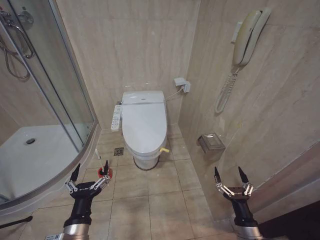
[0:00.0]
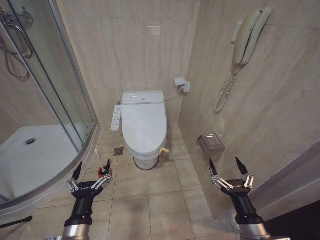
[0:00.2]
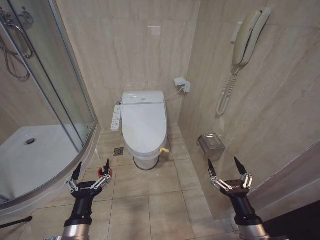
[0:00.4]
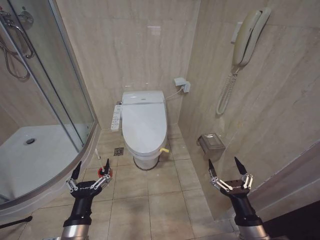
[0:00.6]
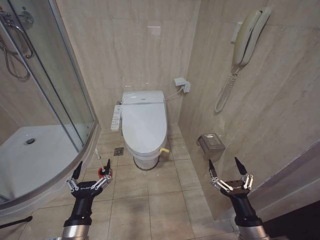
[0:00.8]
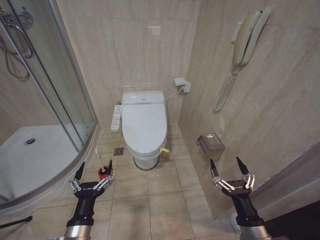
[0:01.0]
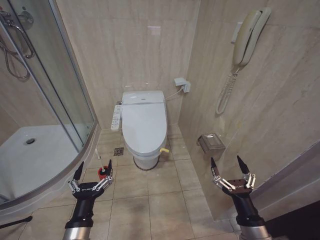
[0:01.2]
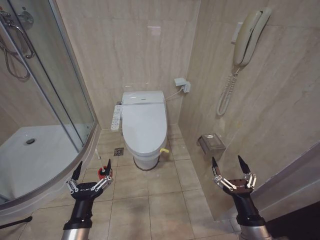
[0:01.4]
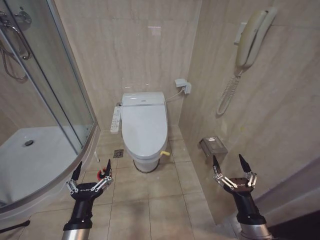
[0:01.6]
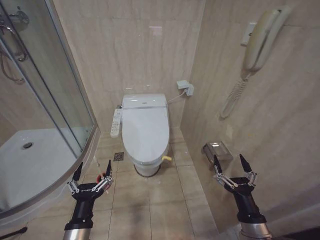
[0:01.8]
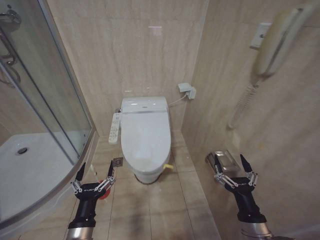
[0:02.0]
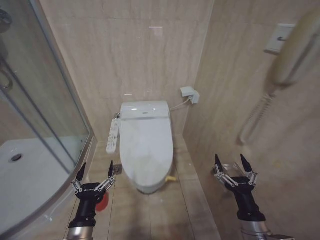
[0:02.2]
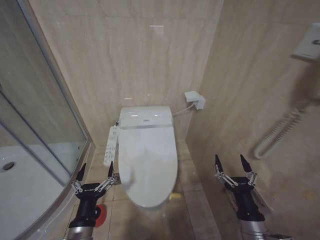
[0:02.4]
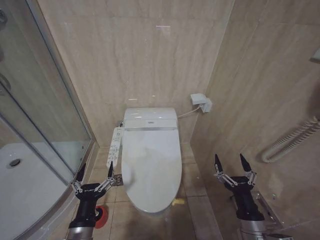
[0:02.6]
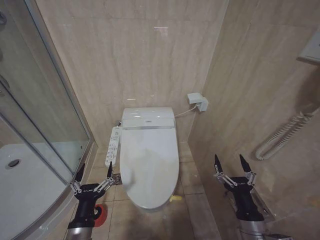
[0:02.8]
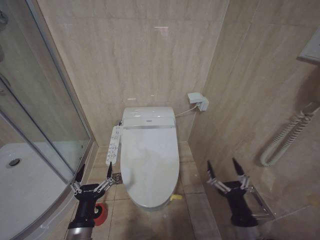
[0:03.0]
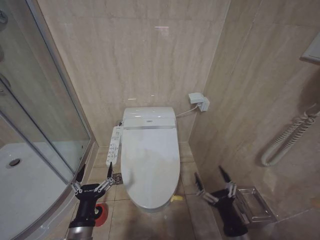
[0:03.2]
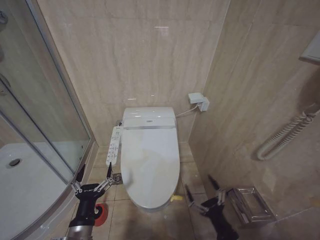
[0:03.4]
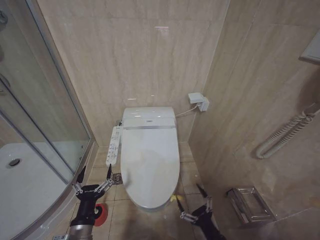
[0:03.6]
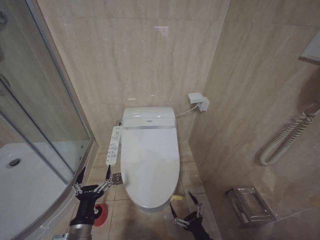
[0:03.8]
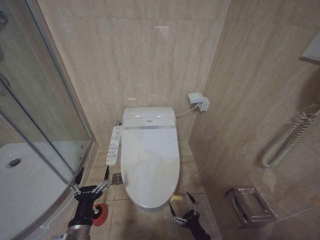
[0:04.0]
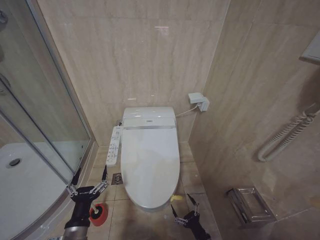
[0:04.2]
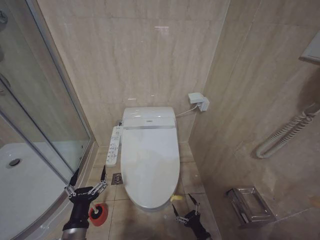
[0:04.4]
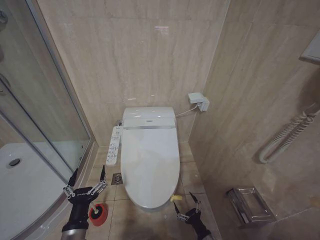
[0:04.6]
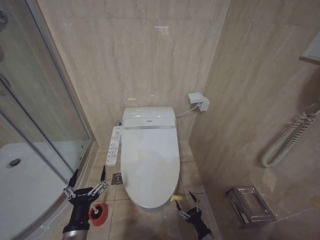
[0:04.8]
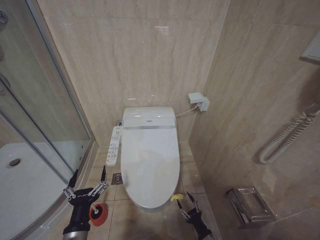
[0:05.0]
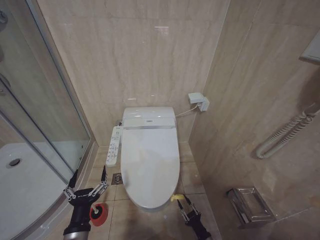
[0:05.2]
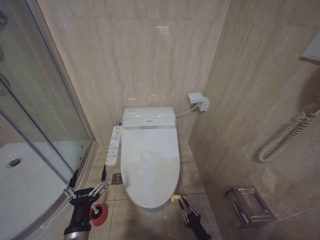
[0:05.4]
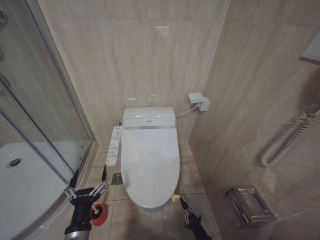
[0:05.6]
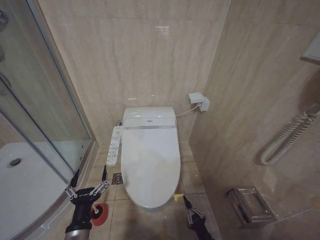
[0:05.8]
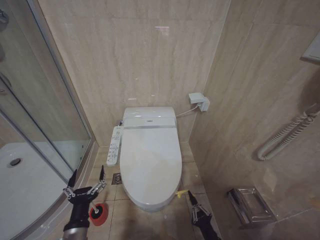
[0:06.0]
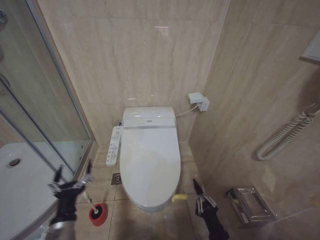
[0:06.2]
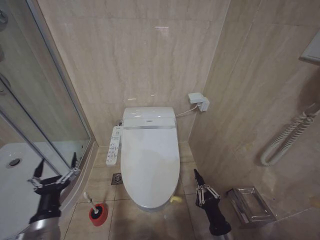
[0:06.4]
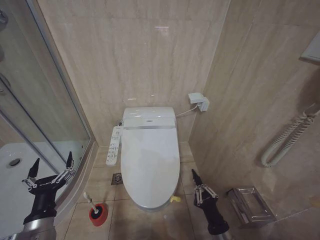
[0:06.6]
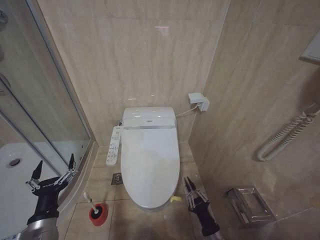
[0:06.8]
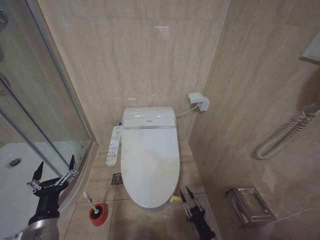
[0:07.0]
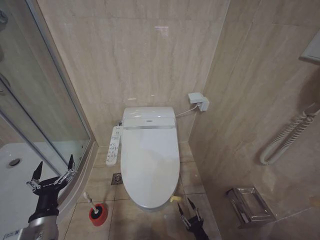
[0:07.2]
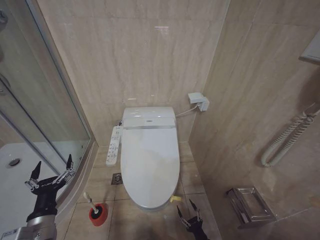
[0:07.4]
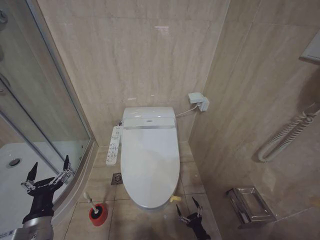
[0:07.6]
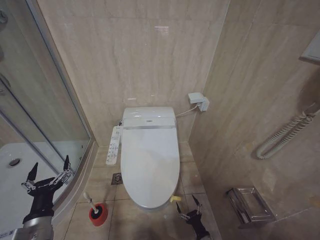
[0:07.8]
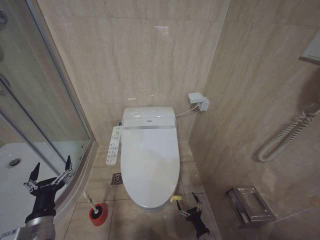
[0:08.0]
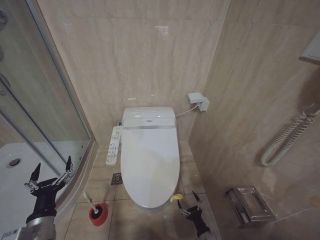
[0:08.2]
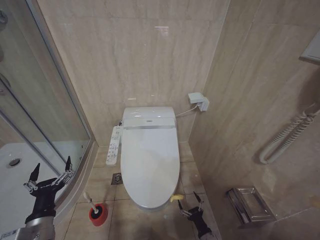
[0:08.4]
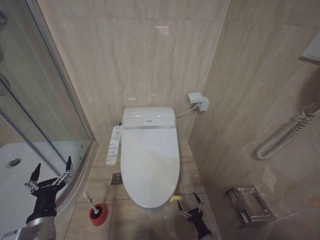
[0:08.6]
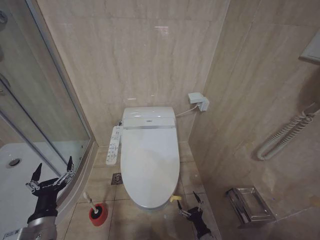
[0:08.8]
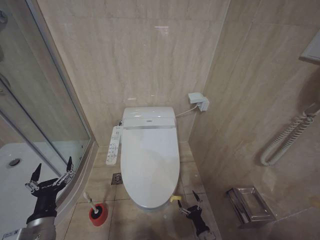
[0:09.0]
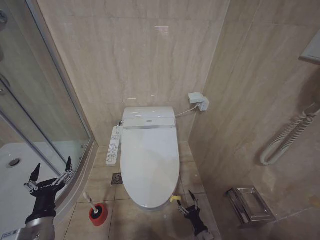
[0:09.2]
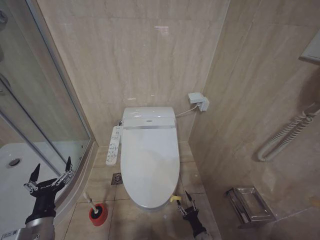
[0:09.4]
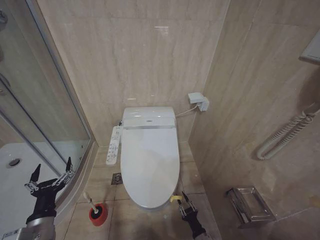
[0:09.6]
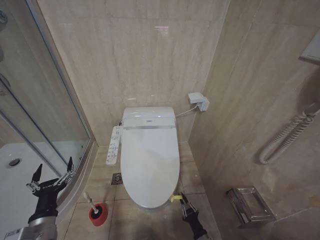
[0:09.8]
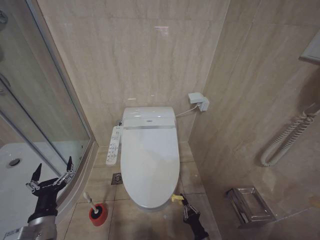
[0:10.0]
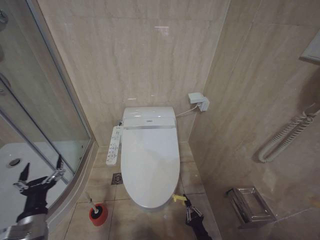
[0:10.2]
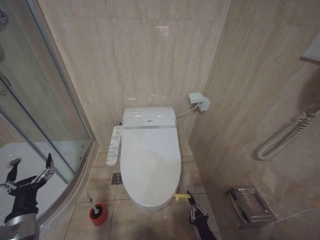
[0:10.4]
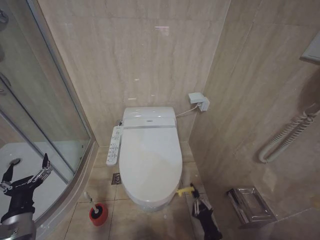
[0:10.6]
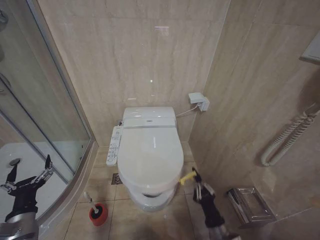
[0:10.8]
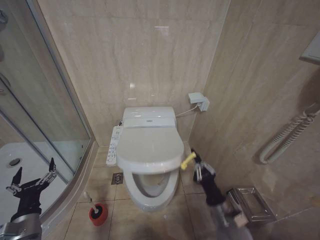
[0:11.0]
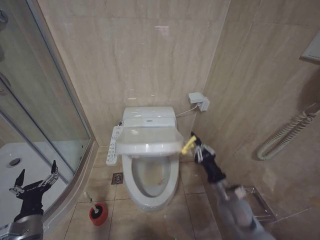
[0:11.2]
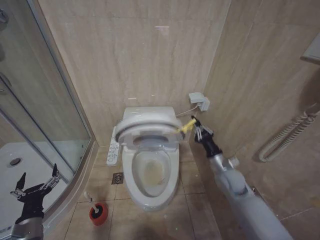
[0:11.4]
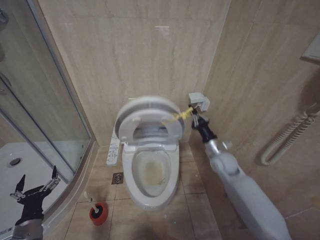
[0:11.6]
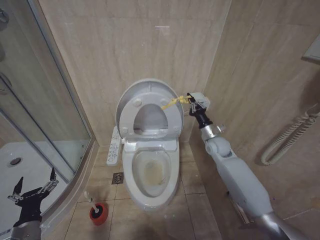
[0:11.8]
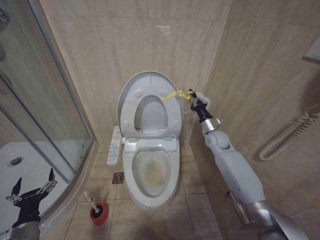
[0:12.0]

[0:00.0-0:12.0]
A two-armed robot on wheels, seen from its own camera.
Task of the whole recording: Open the toilet lid, clean the toilet bowl with a toilet brush, close the toilet lid, and flush.
0:03.0 to 0:04.4: The right gripper shifts some 25 cm downward.
0:04.4 to 0:06.0: The right gripper shifts by approximately 5 cm, and closes.
0:06.0 to 0:07.6: The left gripper is displaced to the left by about 10 cm. The right gripper shifts approximately 10 cm downward, and opens its fingers.
0:07.6 to 0:09.0: The grippers move only a little.
0:09.0 to 0:10.4: The right gripper shifts some 5 cm upward, and closes up.
0:10.4 to 0:12.0: The left gripper heads downward, covering about 5 cm; the right gripper is displaced forward and upward by some 50 cm.

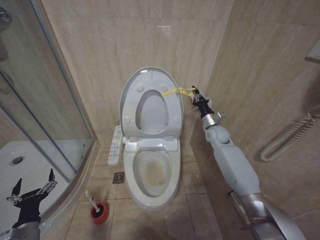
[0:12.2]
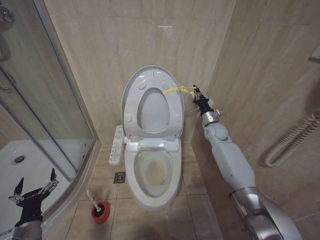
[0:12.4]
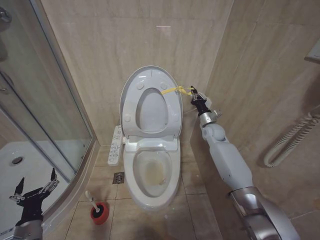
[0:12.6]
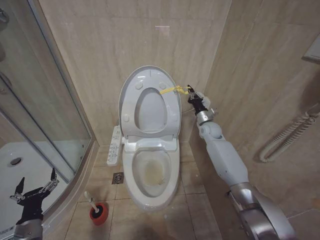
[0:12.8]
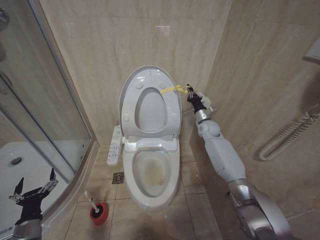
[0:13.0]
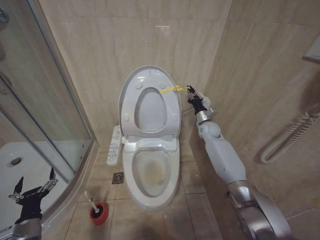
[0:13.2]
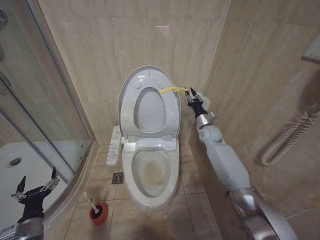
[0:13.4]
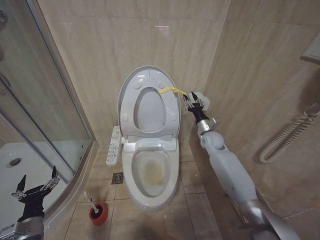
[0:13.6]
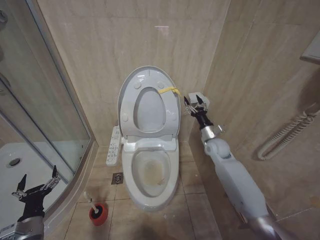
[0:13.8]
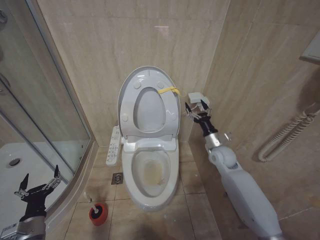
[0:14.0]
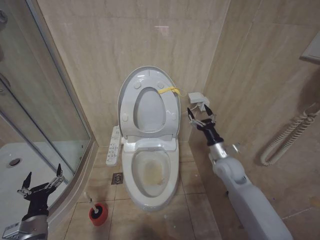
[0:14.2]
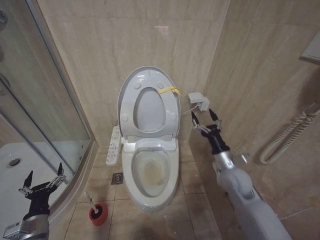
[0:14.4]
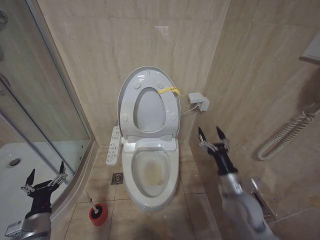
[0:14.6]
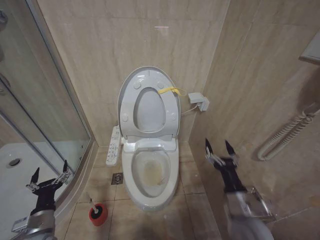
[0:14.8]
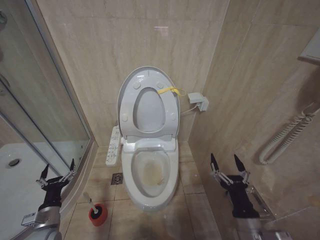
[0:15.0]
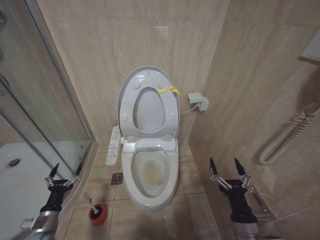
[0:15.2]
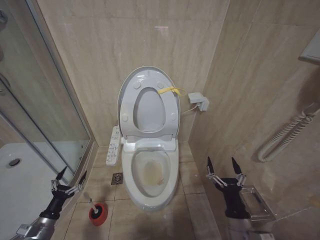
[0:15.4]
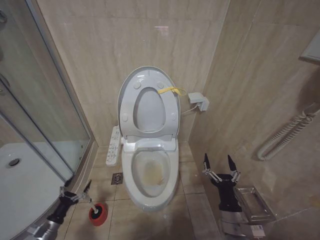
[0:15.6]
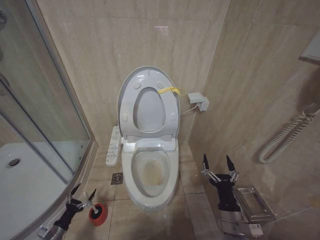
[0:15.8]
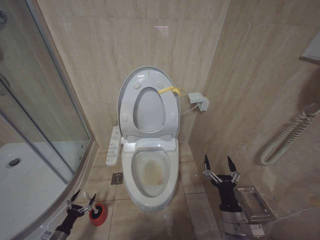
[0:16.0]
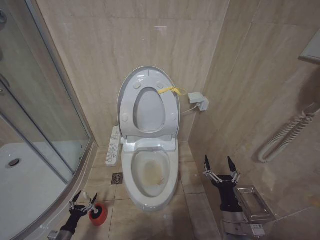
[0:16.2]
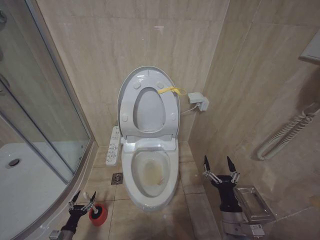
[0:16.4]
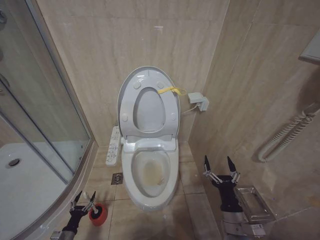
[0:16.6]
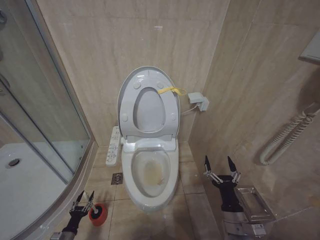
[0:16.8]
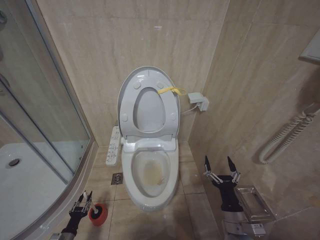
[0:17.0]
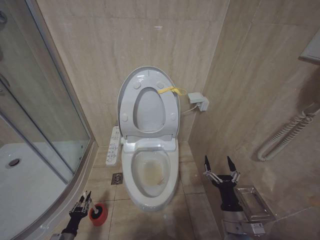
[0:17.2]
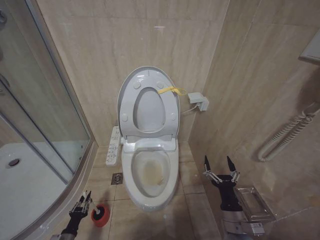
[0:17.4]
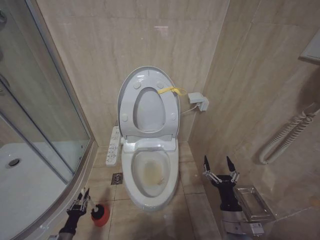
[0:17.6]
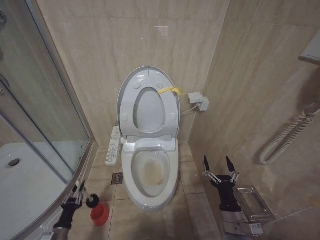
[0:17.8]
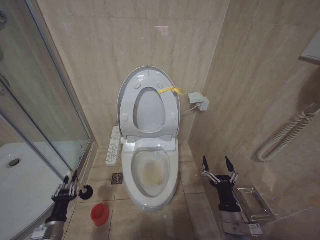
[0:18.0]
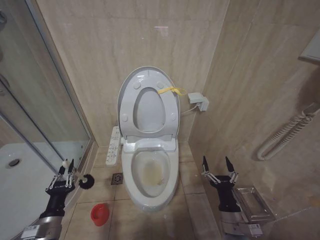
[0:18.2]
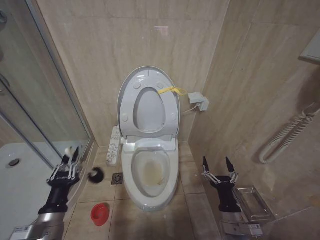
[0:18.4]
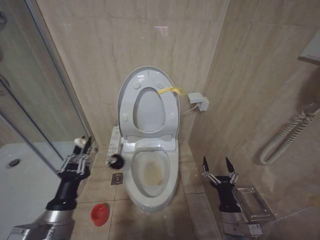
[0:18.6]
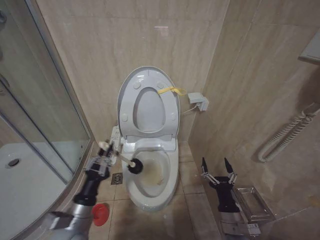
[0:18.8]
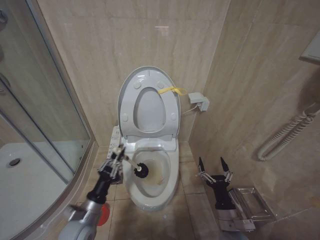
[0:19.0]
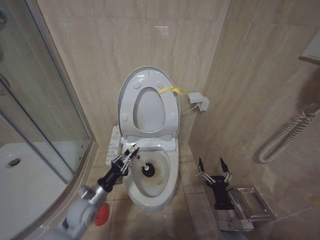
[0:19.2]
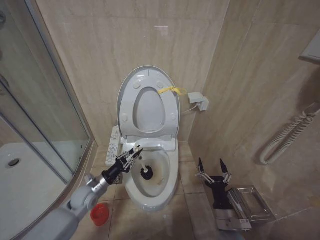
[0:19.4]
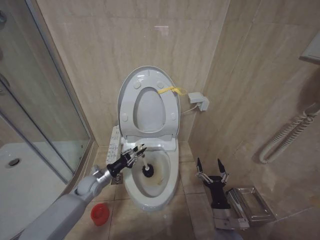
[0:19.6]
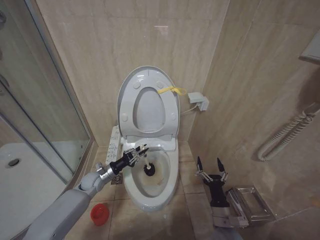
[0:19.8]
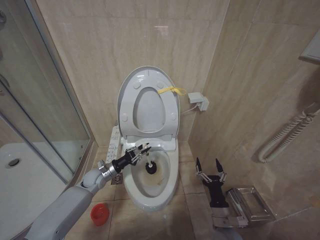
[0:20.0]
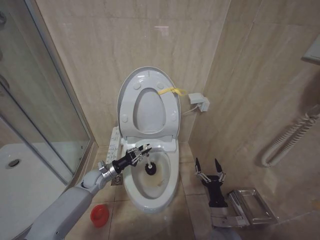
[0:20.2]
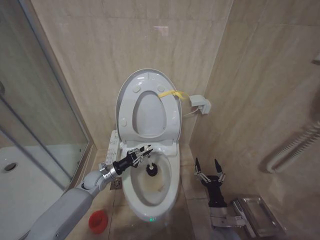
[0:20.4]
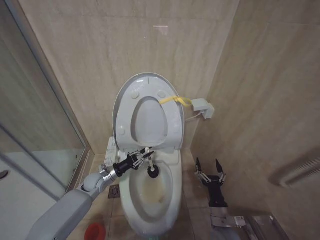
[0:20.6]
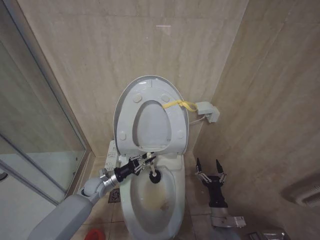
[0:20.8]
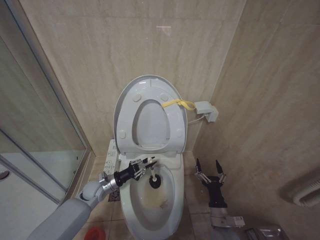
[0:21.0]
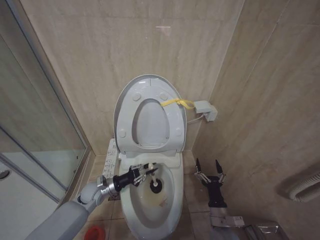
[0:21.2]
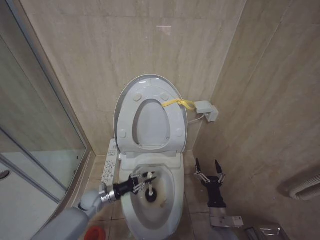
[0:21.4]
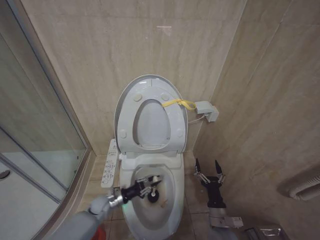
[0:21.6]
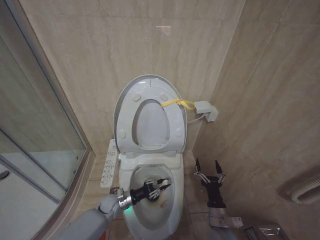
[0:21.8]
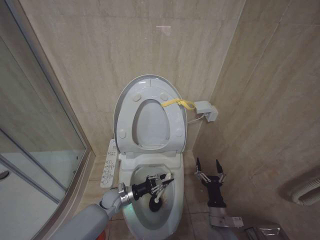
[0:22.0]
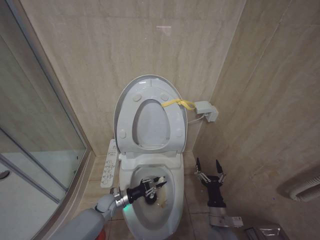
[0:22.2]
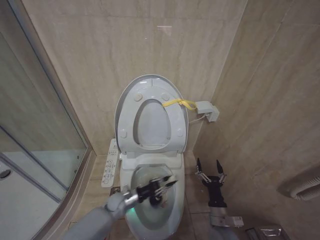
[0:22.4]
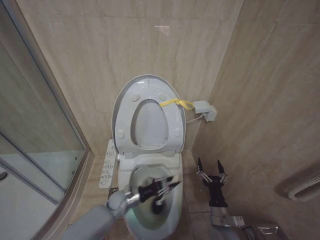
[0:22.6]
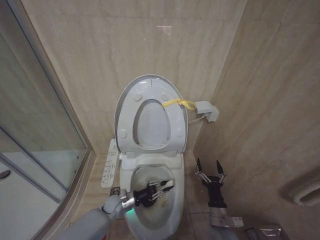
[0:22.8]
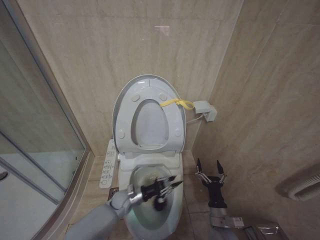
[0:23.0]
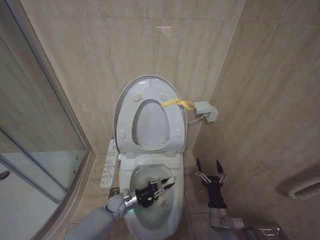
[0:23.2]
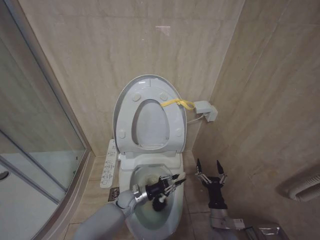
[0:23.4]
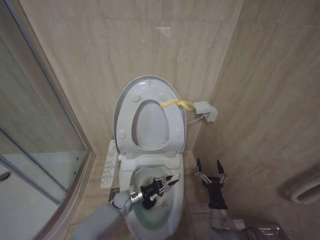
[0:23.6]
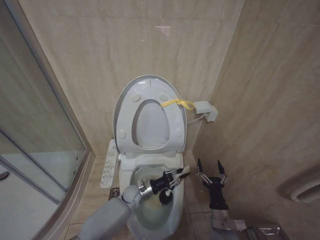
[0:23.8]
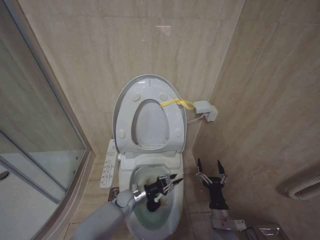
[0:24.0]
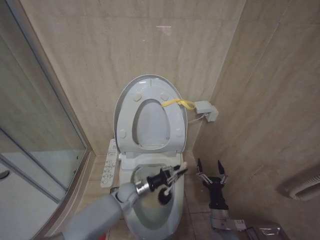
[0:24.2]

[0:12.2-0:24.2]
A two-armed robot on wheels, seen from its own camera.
Task of the whole recording: Open the toilet lid, clean the toilet bowl with a toilet brush, close the toilet lid, and flush.
0:12.2 to 0:13.8: The right gripper shifts by approximately 5 cm, and opens up.
0:13.8 to 0:15.2: The right gripper heads backward, covering about 35 cm, and opens up. Meanwhile the left gripper changes place by approximately 5 cm.
0:15.2 to 0:16.6: The right gripper shifts roughly 5 cm downward; the left gripper goes roughly 20 cm downward.
0:16.6 to 0:18.2: The left gripper shifts approximately 25 cm upward, and closes its fingers.
0:18.2 to 0:19.8: The left gripper goes roughly 25 cm forward.
0:19.8 to 0:21.2: There are only small adjustments of the grippers.
0:21.2 to 0:22.6: The left gripper travels to the right and downward by about 15 cm.
0:22.6 to 0:24.2: The left gripper swings left and right, some 10 cm each way, with 3 reversals.
